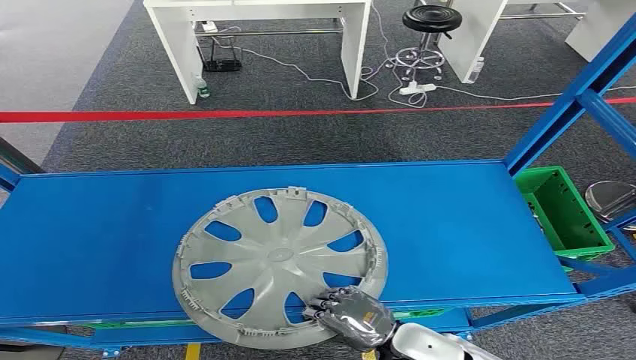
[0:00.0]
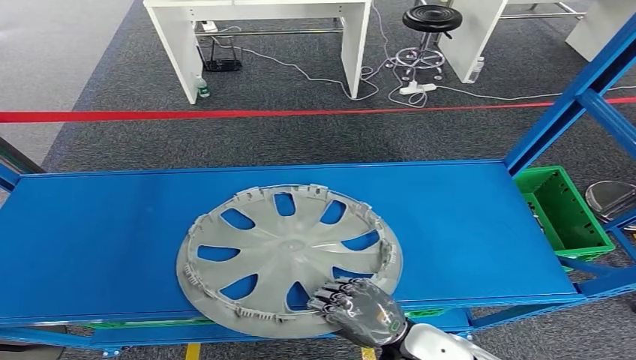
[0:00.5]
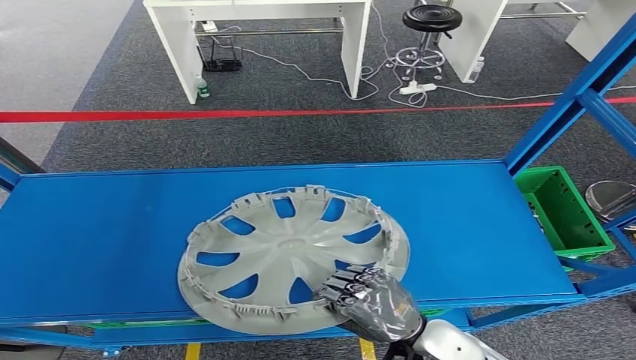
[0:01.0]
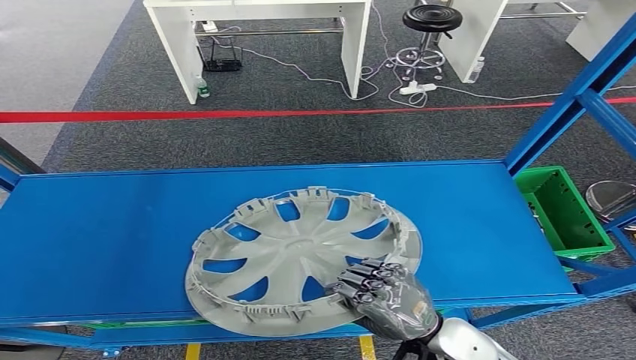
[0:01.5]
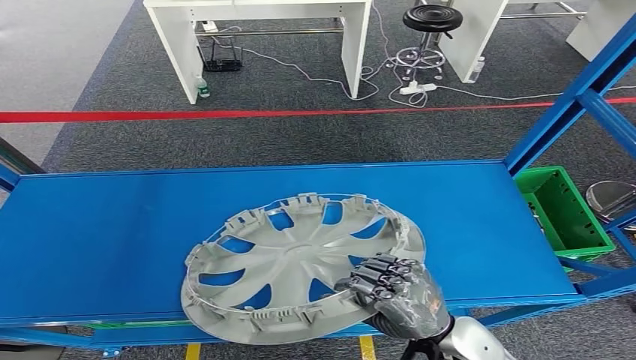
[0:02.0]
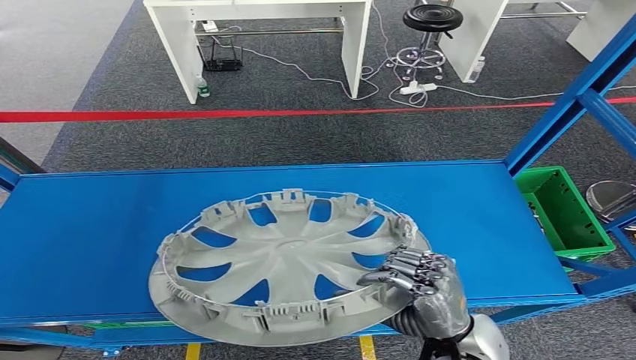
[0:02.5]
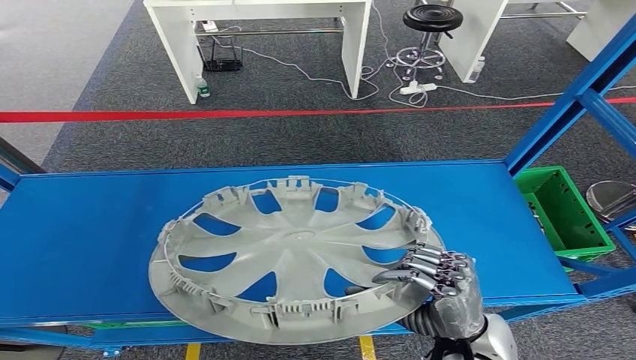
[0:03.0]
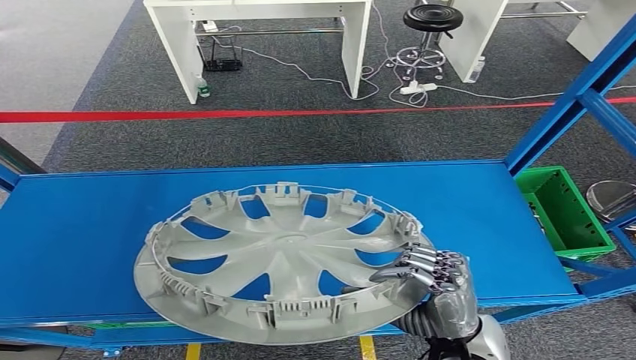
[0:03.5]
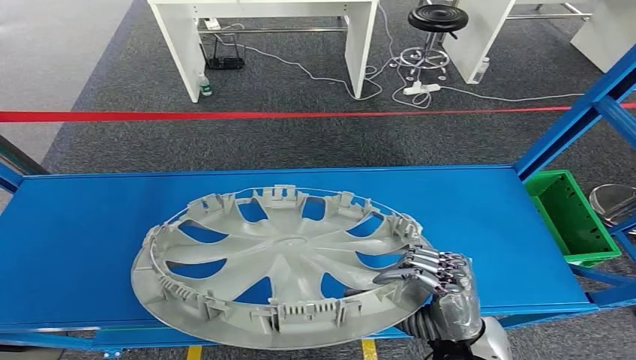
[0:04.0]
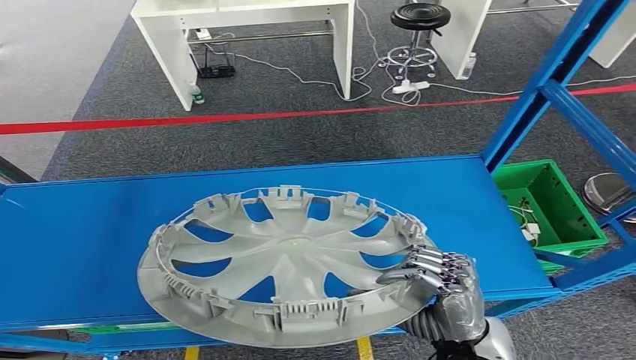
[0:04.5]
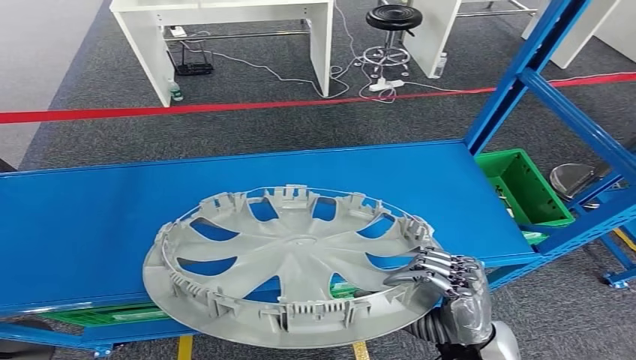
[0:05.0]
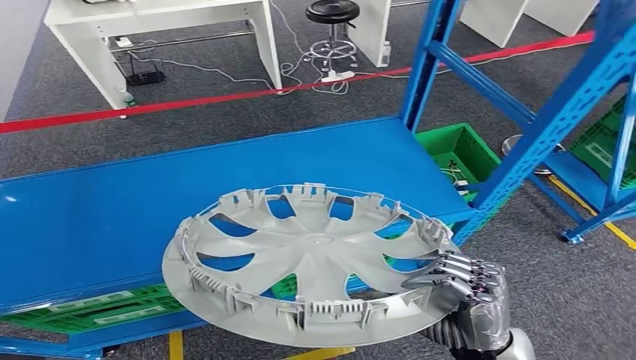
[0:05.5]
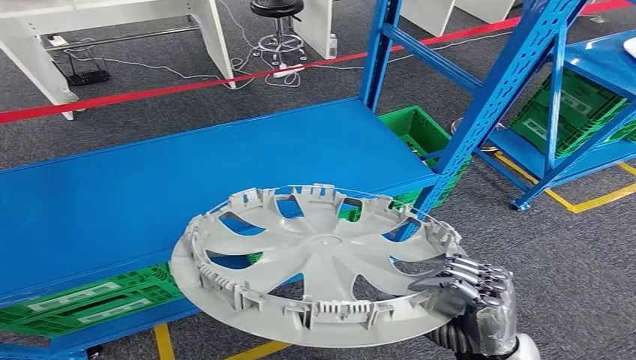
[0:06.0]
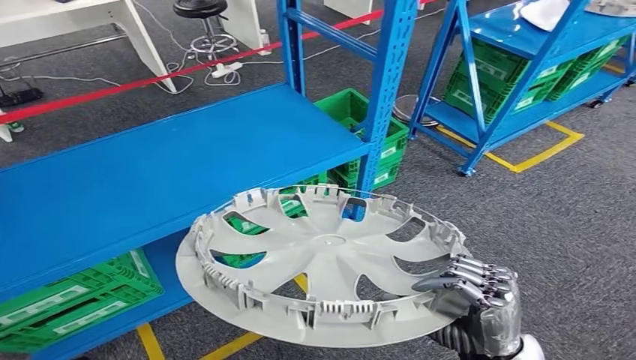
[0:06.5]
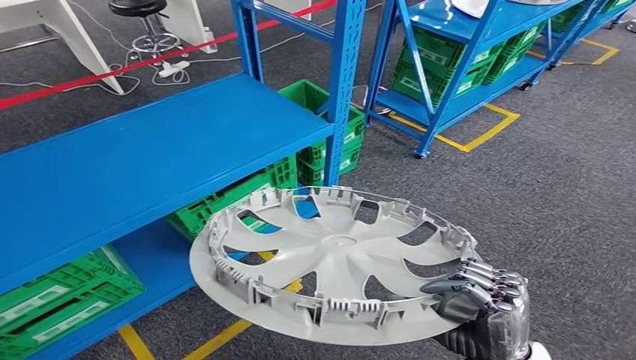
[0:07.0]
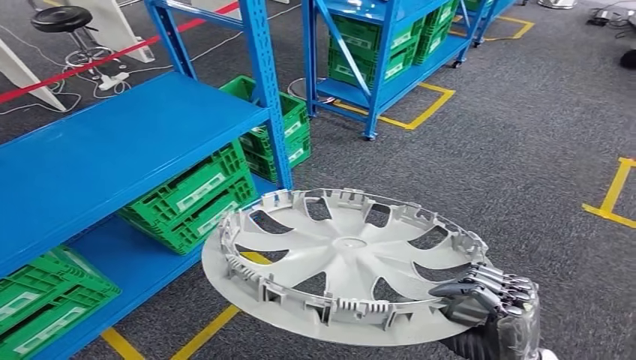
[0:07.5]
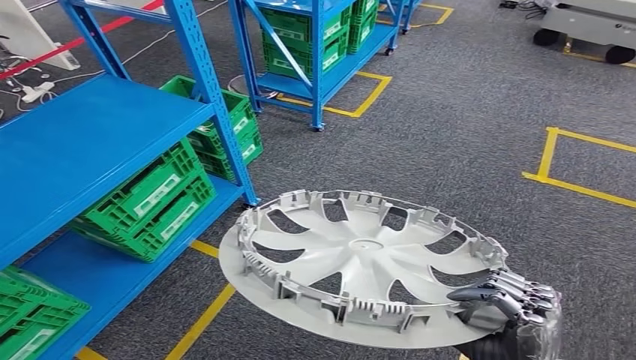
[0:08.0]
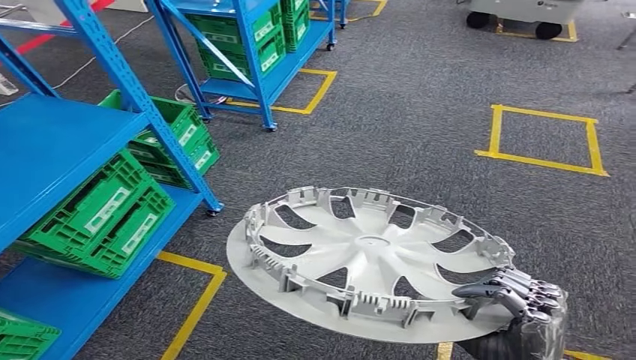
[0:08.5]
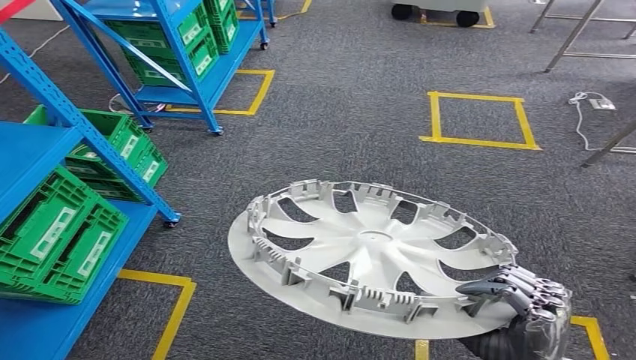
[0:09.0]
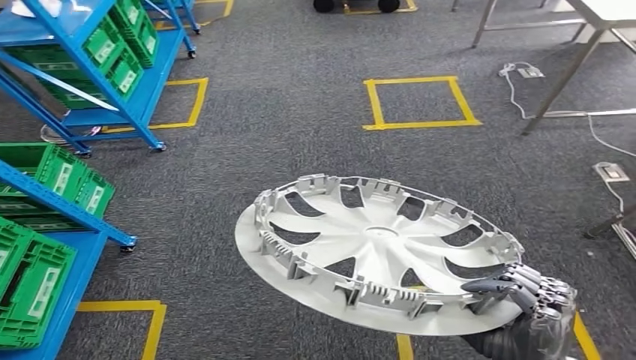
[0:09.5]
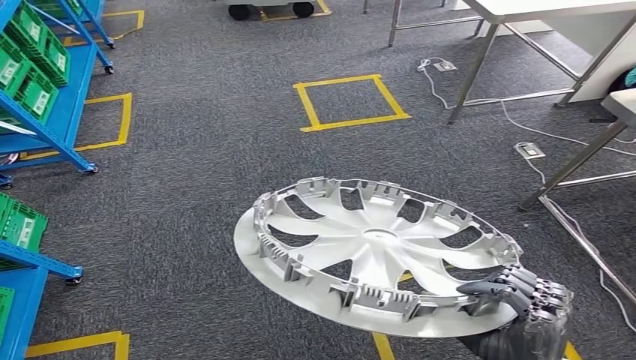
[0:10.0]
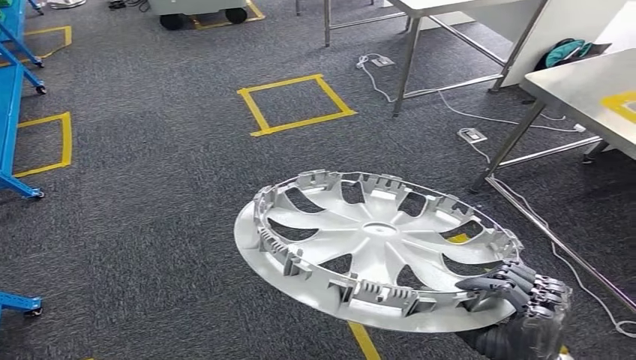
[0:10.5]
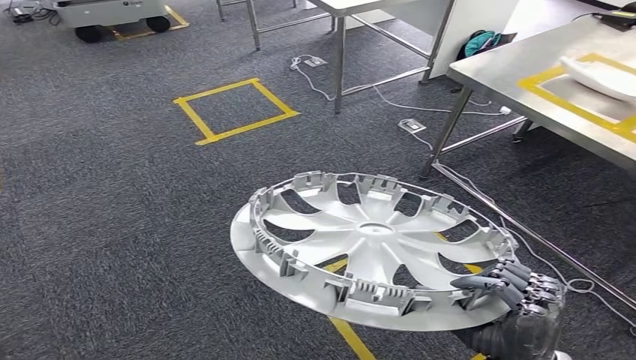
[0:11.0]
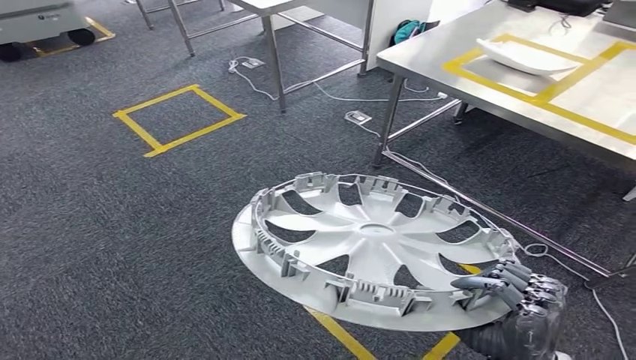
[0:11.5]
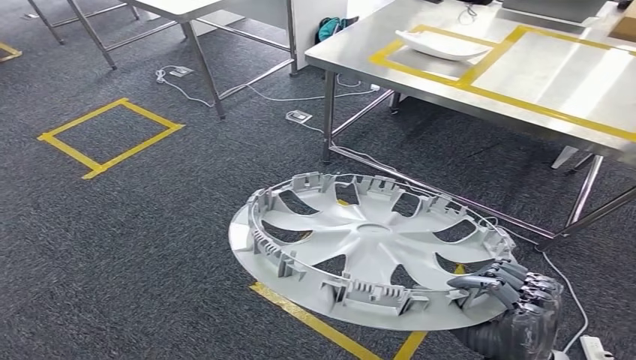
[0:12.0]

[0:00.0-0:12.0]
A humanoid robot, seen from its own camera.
Step, 0:00.0 to 0:05.0: Pick up the small component from the shelf.

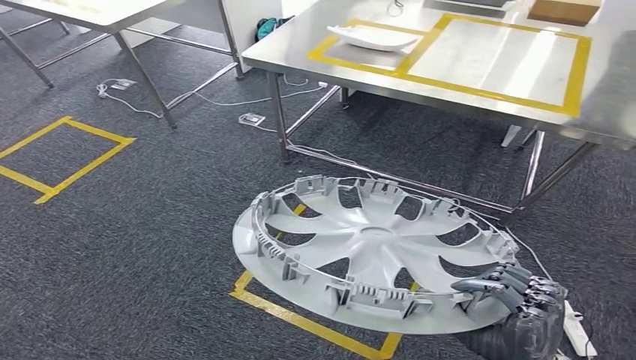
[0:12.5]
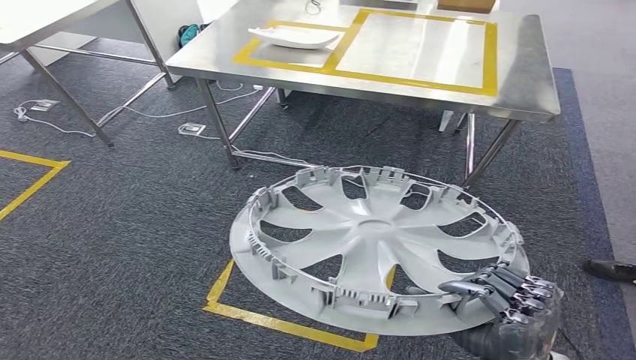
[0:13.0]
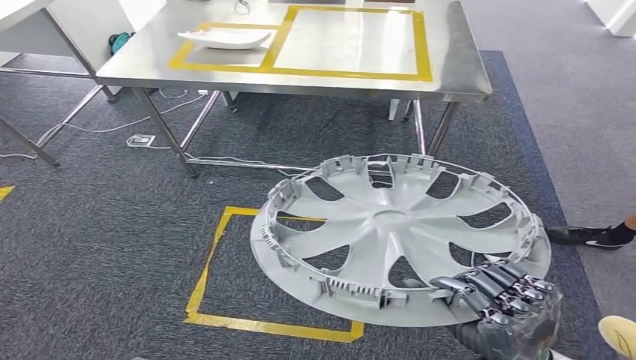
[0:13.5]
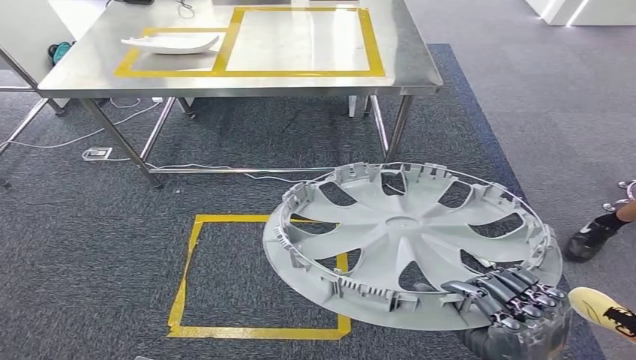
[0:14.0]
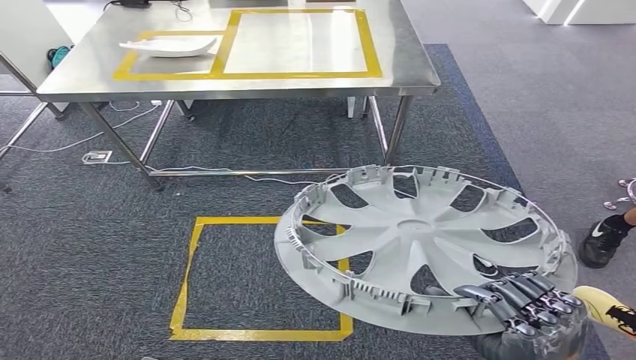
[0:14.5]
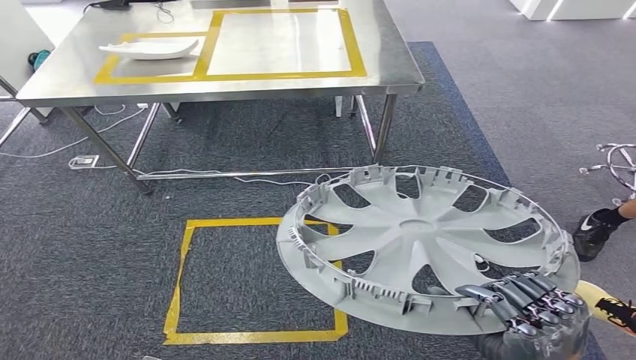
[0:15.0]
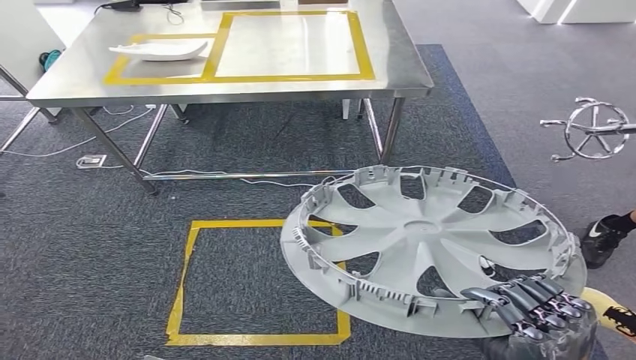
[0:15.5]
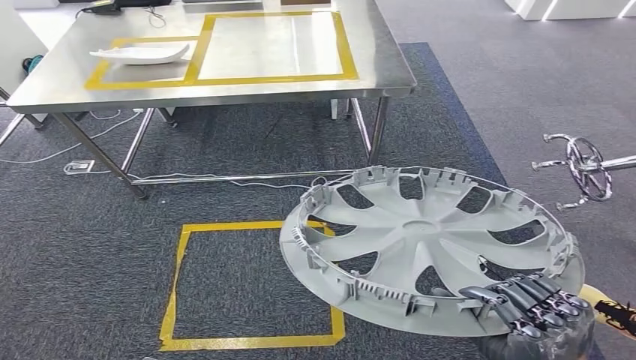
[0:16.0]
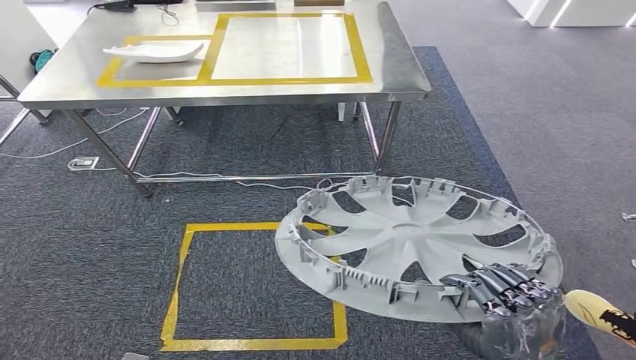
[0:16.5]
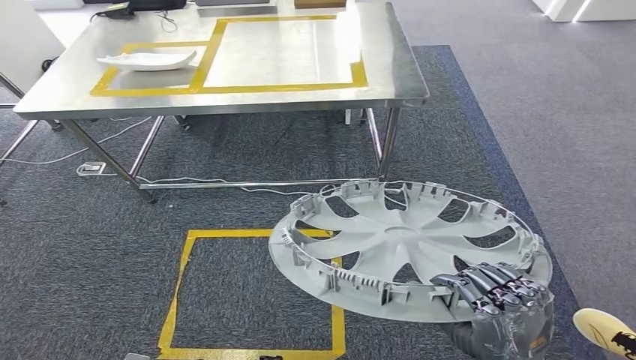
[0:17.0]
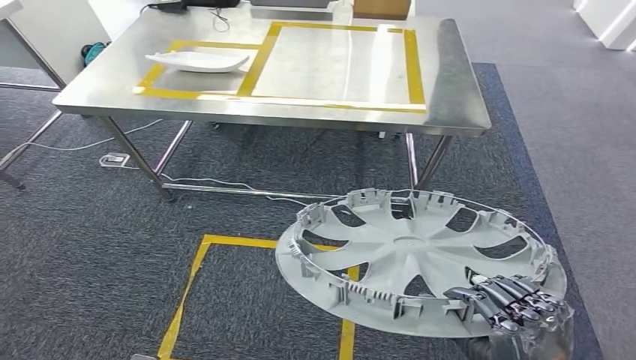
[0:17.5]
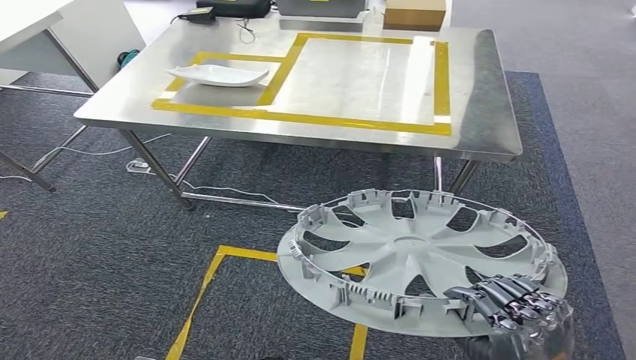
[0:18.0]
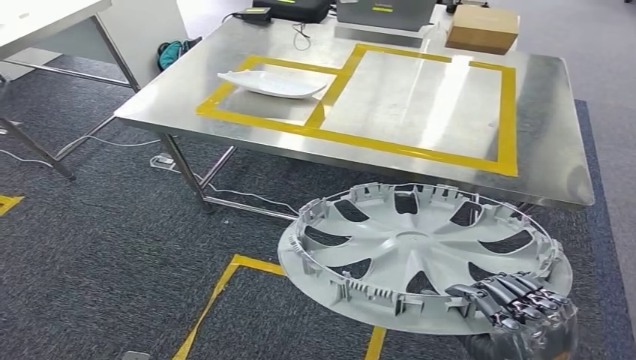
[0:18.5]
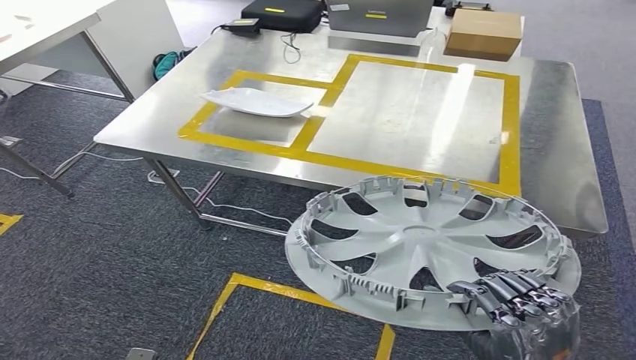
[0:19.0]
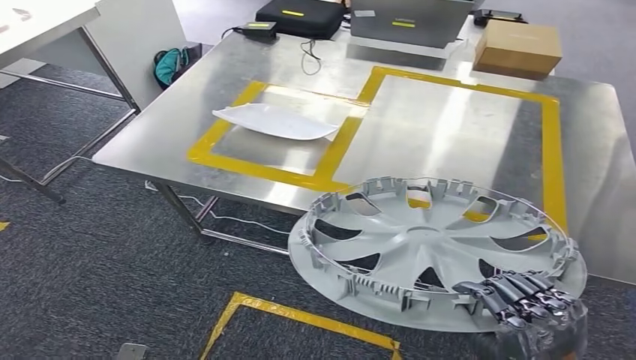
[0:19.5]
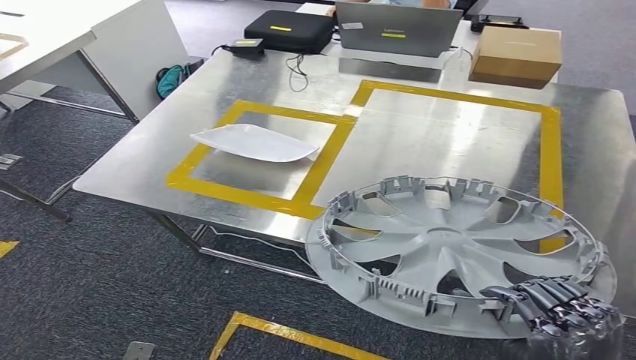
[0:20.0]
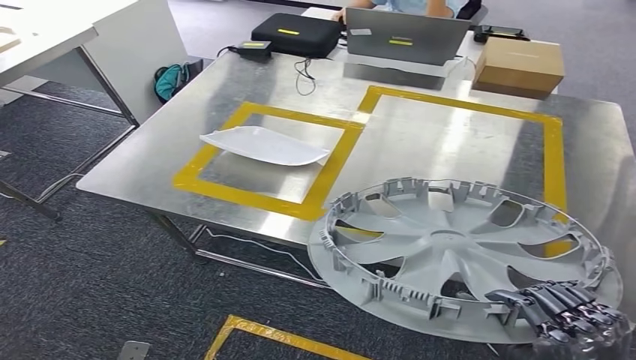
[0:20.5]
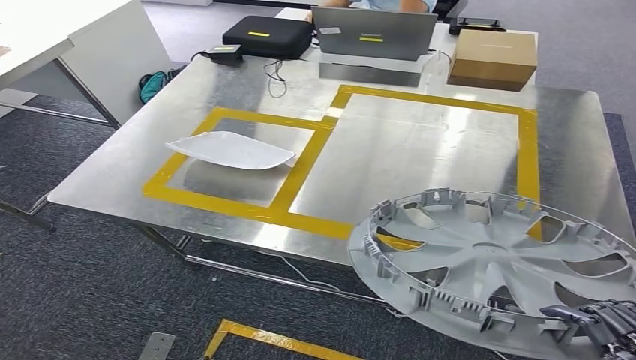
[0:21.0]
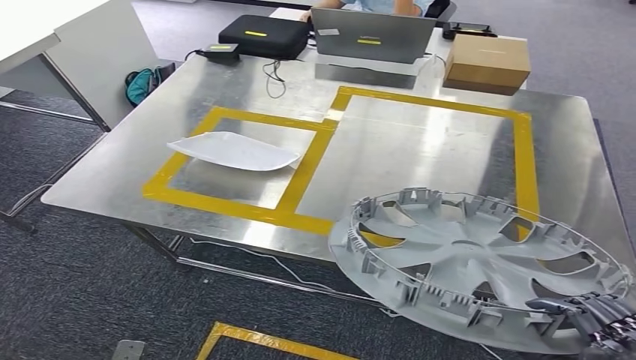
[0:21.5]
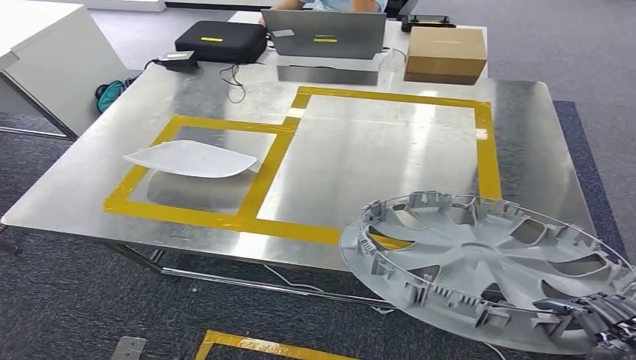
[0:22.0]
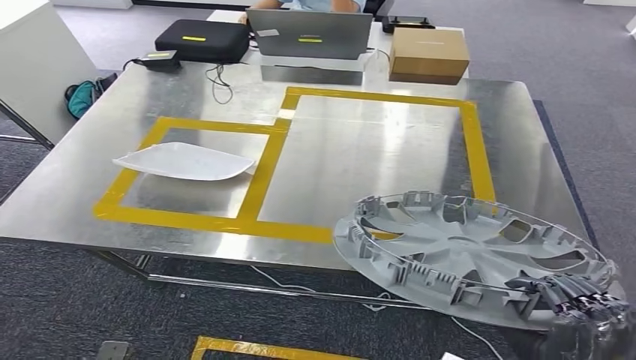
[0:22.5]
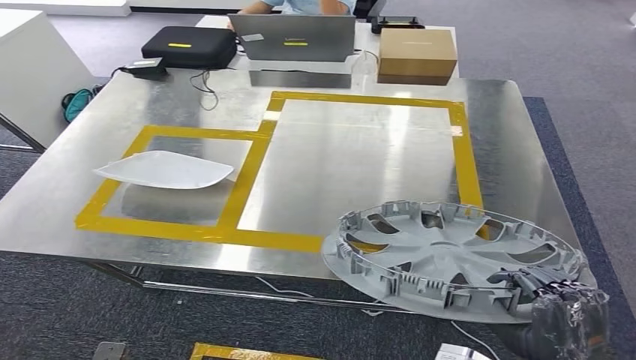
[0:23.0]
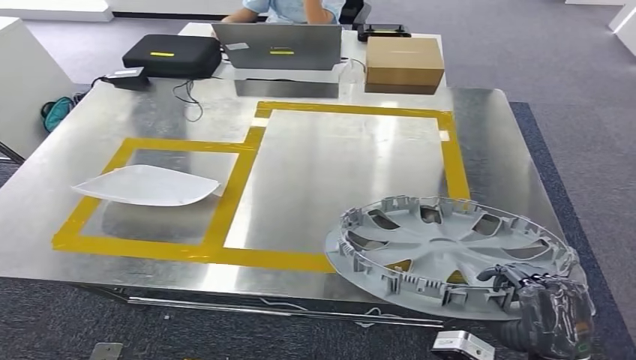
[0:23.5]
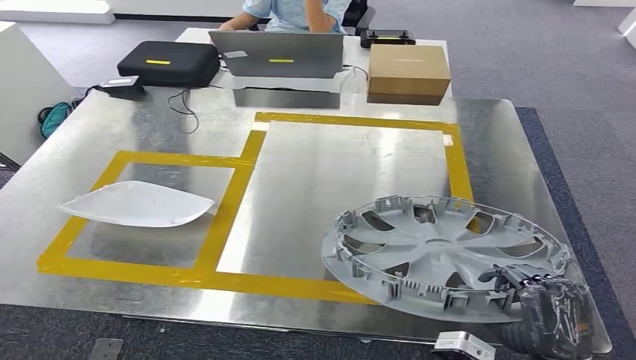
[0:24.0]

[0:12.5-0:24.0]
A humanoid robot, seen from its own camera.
Step, 0:12.5 to 0:18.5: Bring the small component to the front of the workbench.
